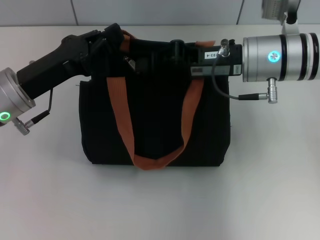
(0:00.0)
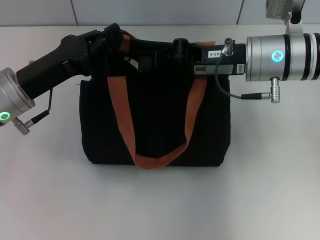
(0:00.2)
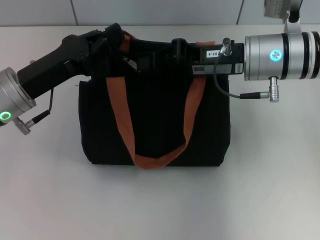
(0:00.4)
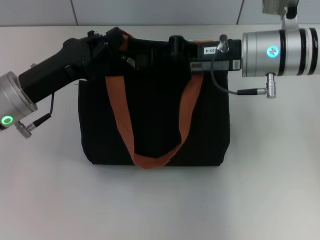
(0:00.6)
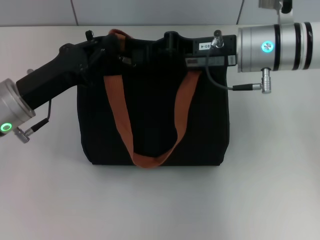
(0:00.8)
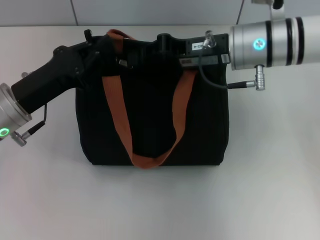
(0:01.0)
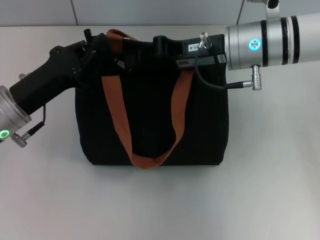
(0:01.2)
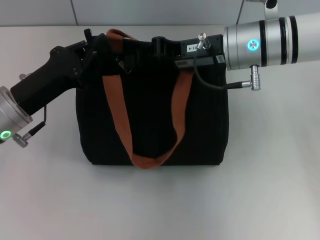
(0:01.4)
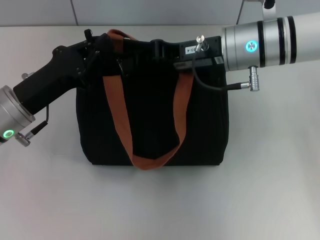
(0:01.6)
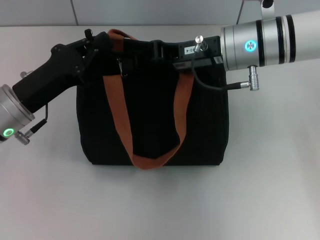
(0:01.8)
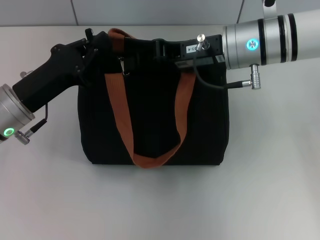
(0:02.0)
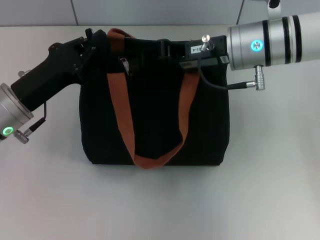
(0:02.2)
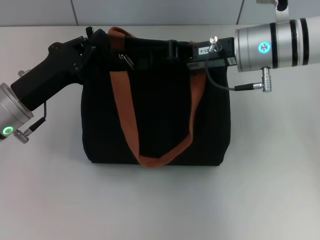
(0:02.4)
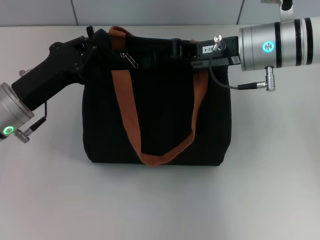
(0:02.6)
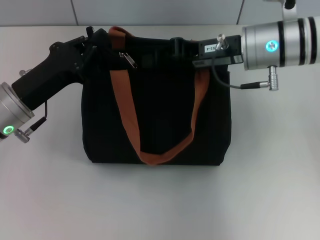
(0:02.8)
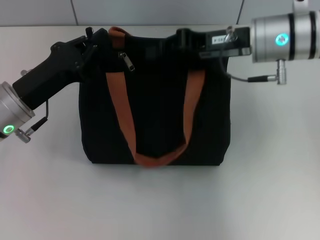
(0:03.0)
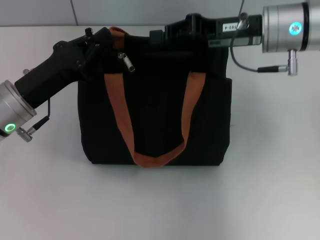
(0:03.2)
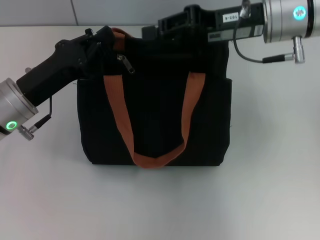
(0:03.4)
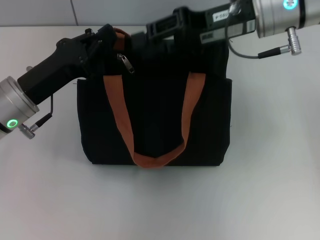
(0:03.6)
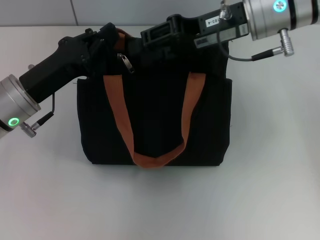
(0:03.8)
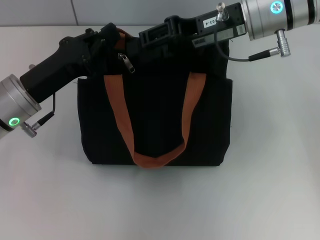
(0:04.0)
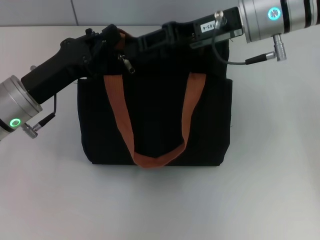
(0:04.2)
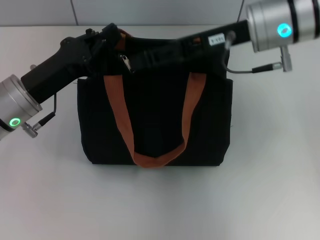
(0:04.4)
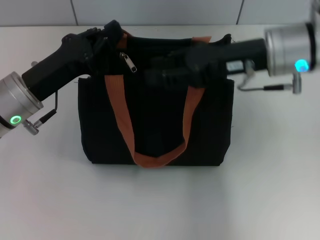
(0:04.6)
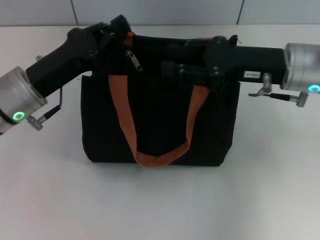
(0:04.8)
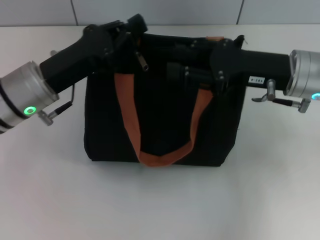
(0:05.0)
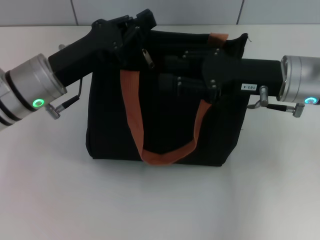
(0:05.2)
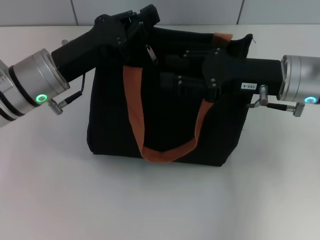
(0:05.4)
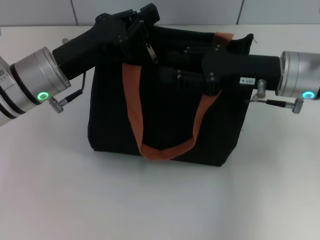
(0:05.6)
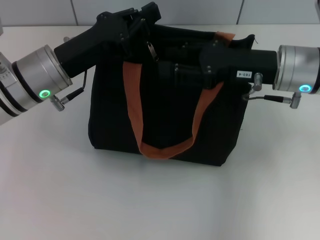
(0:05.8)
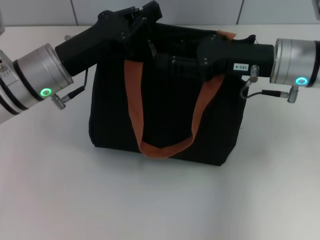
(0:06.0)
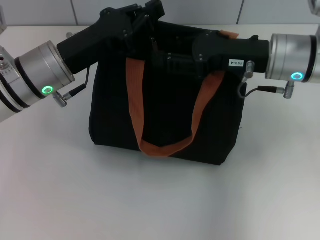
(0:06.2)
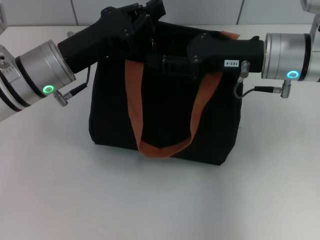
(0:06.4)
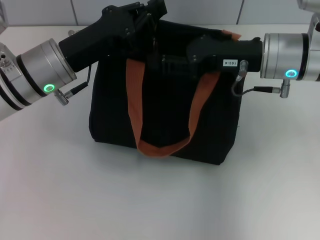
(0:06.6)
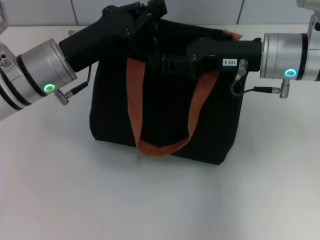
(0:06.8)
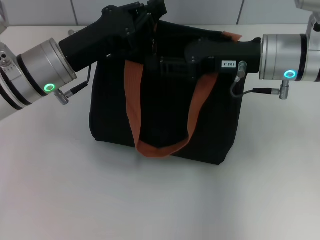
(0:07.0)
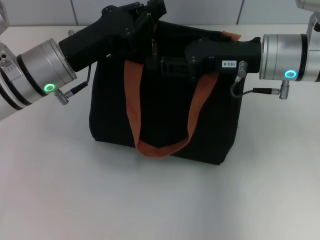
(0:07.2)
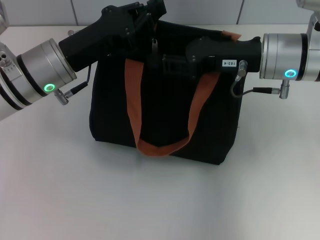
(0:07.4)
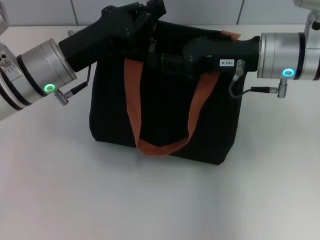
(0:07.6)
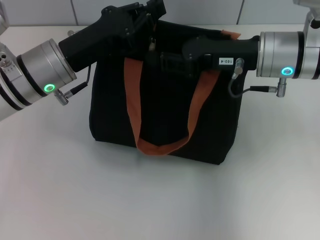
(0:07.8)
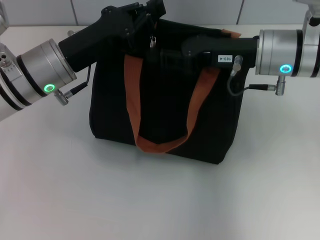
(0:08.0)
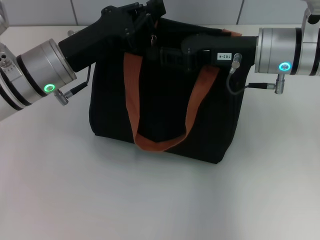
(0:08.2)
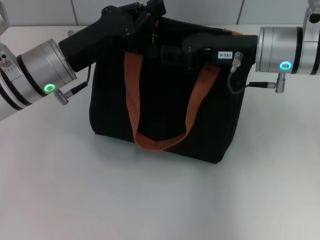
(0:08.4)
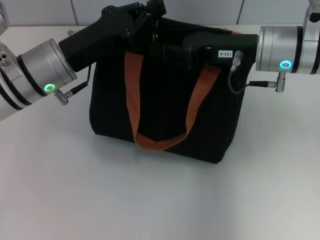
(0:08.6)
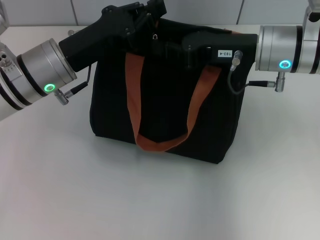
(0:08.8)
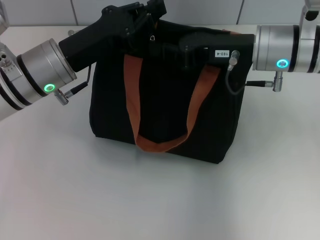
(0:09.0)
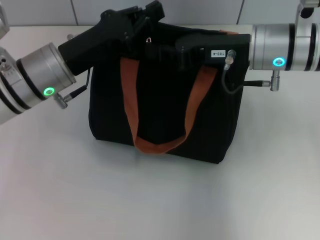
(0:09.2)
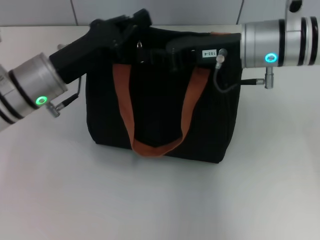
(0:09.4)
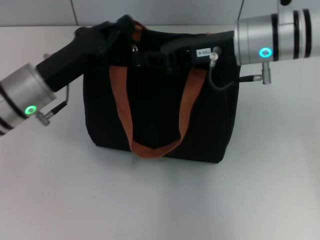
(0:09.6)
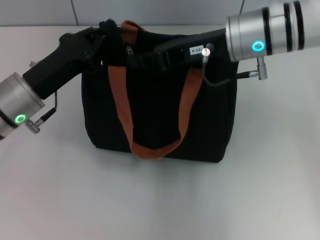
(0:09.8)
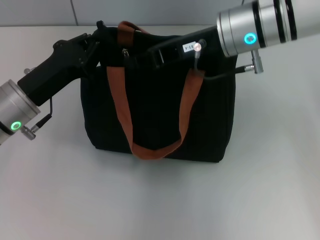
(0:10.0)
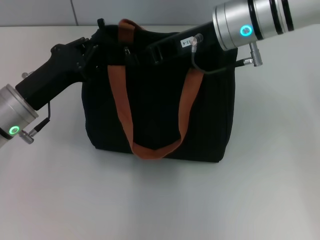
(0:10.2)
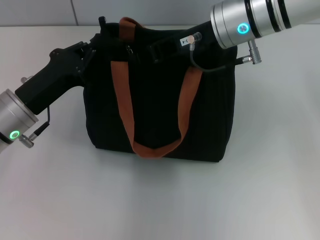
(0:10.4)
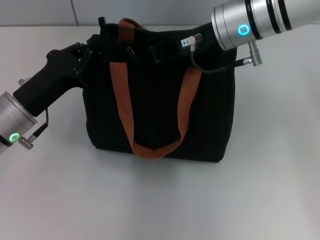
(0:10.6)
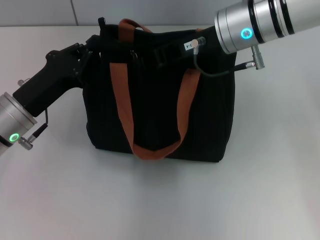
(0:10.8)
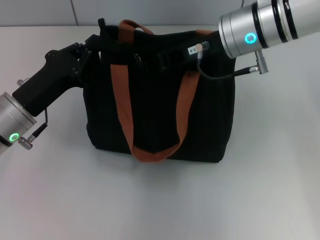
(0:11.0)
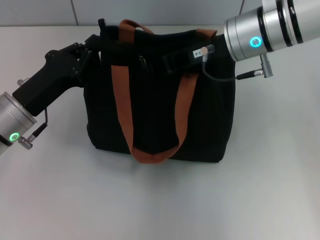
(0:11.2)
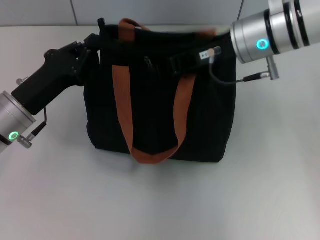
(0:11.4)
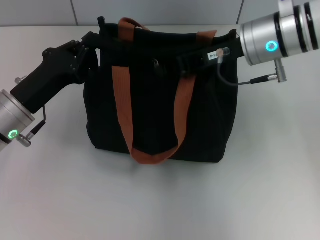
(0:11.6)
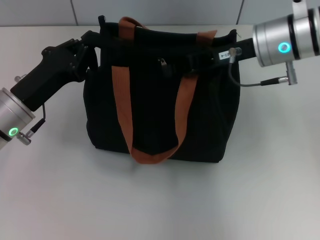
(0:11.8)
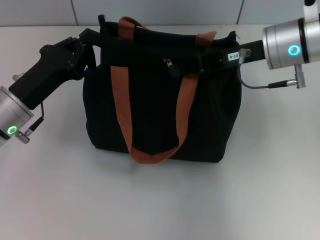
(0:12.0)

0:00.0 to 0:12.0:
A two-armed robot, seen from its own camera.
0:00.0 to 0:03.0: The grippers move only a little.
0:03.0 to 0:04.4: The right gripper opens up.
0:04.4 to 0:06.0: The left gripper shifts by roughly 5 cm. The right gripper travels downward by roughly 5 cm.
0:06.0 to 0:07.6: The grippers stay close to where they were, moving slightly.
0:07.6 to 0:09.0: The right gripper closes up.
0:09.0 to 0:10.4: Both grippers move to the left, approximately 5 cm.
0:10.4 to 0:12.0: The right gripper moves to the right, approximately 5 cm.

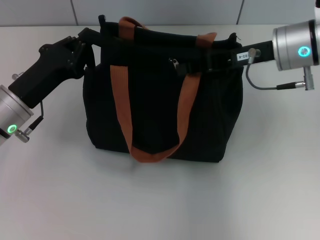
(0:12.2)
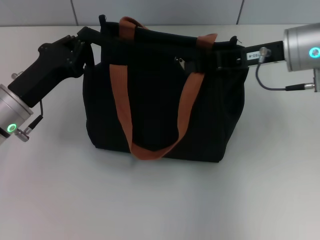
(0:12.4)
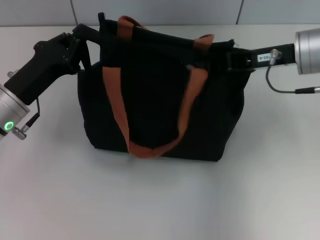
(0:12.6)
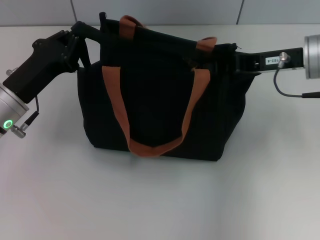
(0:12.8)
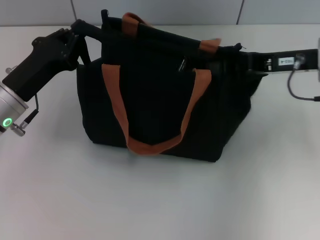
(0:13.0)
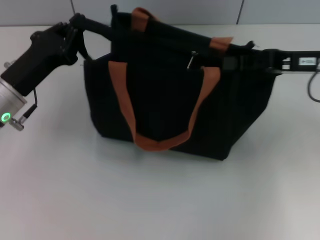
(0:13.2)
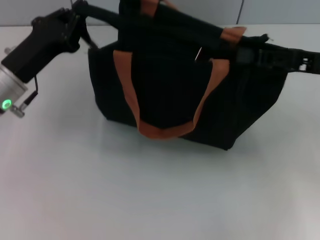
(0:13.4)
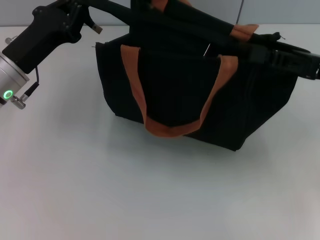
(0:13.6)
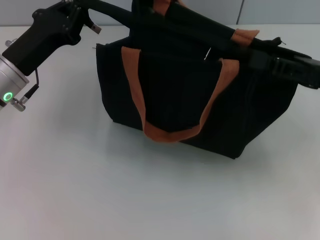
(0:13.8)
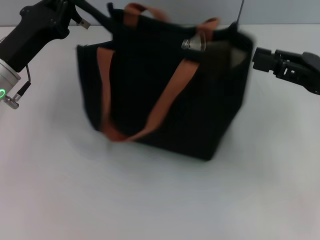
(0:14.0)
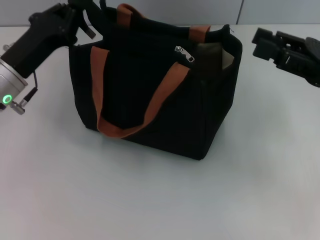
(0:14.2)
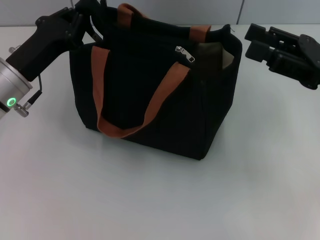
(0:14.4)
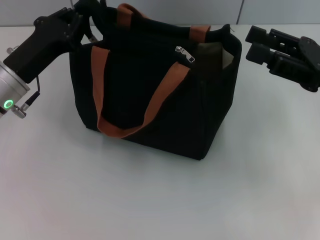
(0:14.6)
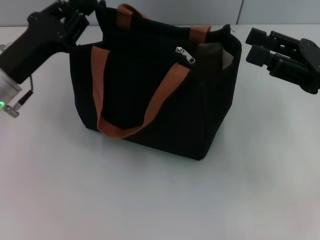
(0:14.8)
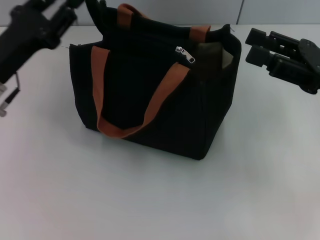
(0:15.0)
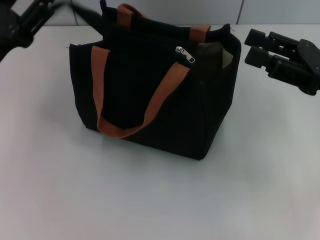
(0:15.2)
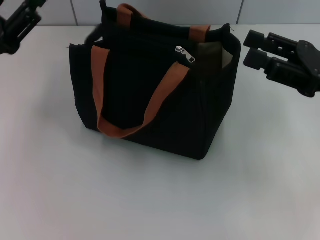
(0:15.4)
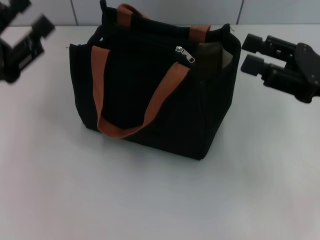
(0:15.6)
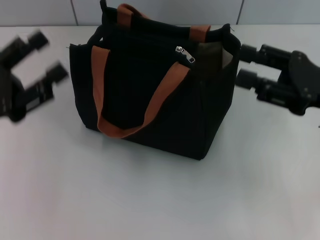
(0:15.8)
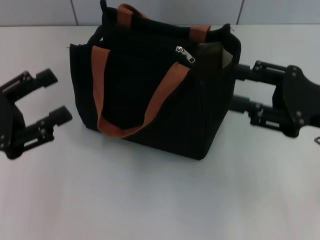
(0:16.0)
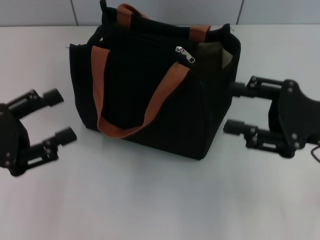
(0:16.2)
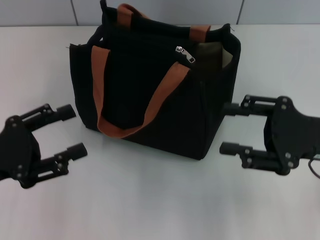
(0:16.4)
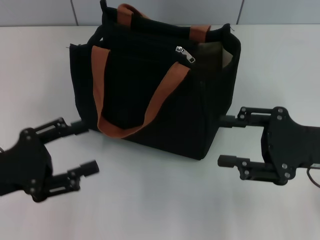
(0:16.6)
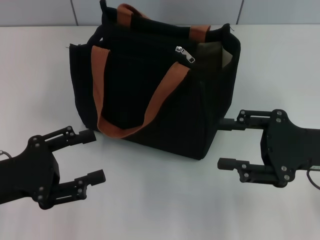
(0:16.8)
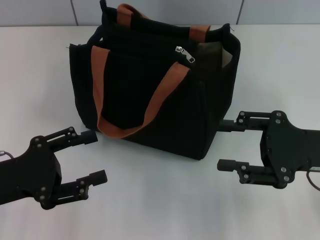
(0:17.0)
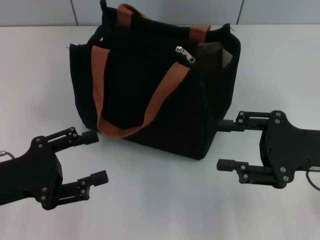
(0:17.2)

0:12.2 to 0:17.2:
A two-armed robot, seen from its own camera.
Step, 0:14.2 to 0:15.2: Grab the zipper with your left hand.
0:12.2 to 0:13.8: The right gripper shifts approximately 15 cm to the right and backward.
0:13.8 to 0:15.6: The left gripper moves backward and to the left, some 10 cm, and opens up. Meanwhile the right gripper opens.
0:15.6 to 0:17.2: The left gripper goes approximately 5 cm backward. The right gripper changes place by approximately 5 cm.

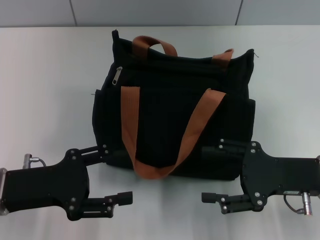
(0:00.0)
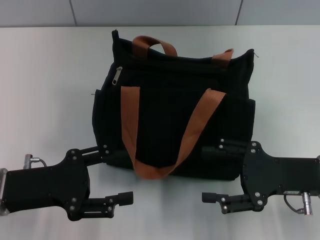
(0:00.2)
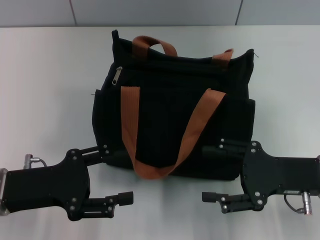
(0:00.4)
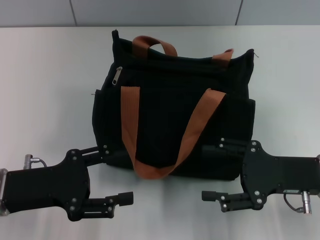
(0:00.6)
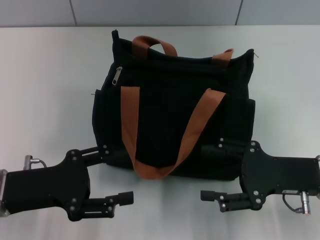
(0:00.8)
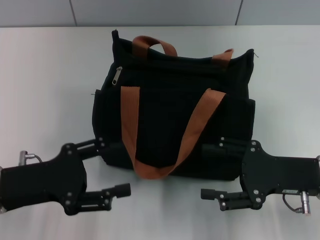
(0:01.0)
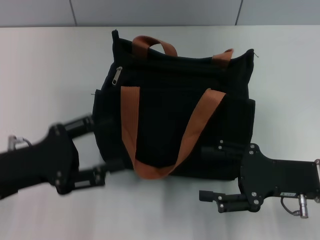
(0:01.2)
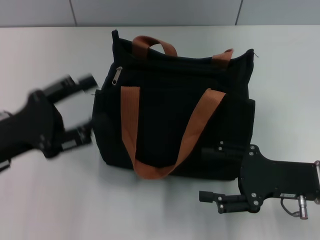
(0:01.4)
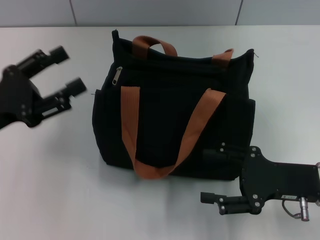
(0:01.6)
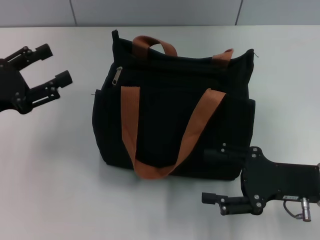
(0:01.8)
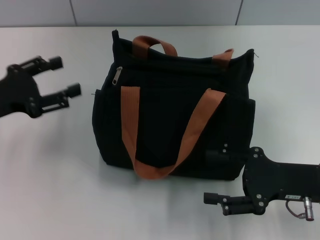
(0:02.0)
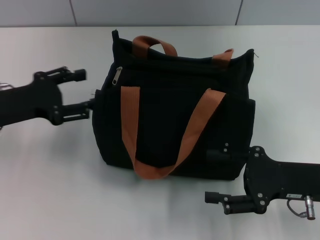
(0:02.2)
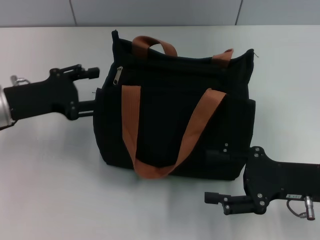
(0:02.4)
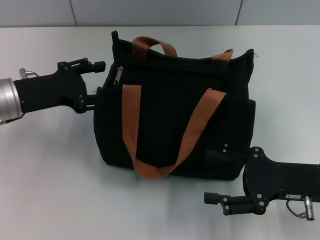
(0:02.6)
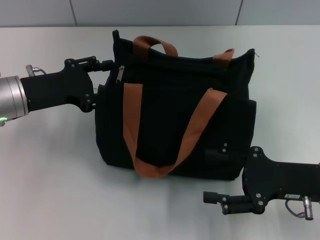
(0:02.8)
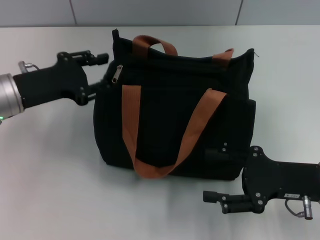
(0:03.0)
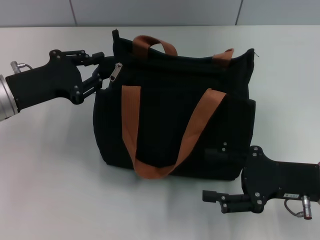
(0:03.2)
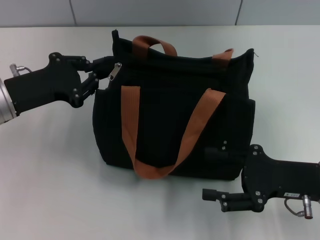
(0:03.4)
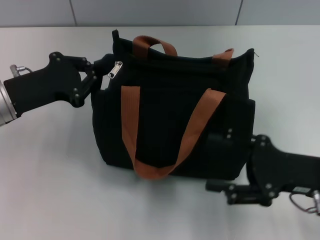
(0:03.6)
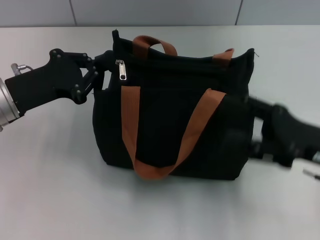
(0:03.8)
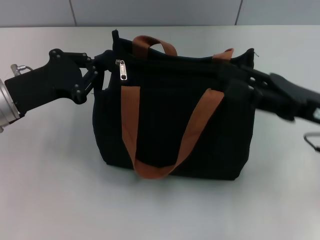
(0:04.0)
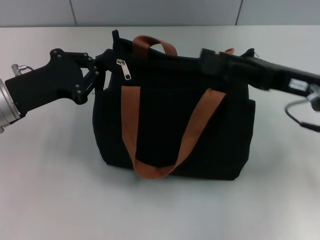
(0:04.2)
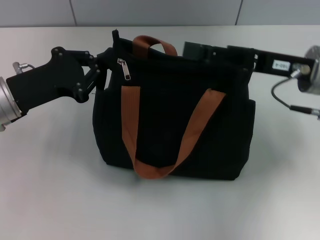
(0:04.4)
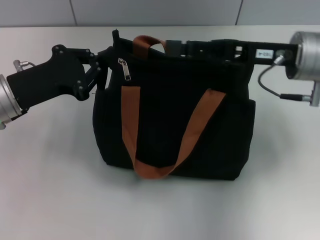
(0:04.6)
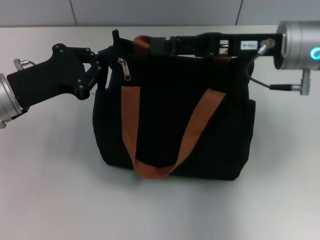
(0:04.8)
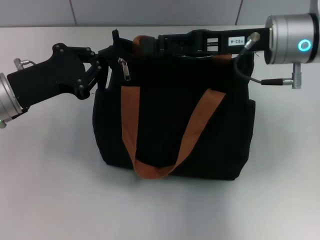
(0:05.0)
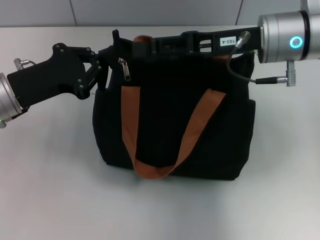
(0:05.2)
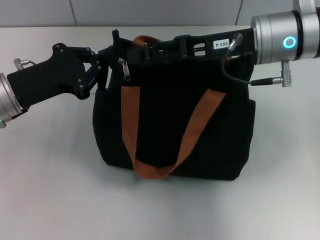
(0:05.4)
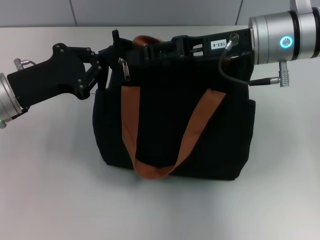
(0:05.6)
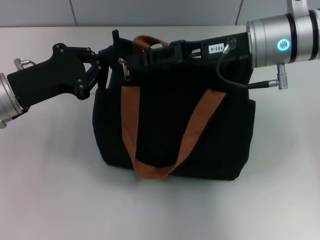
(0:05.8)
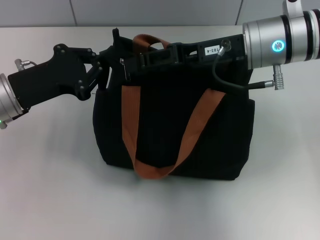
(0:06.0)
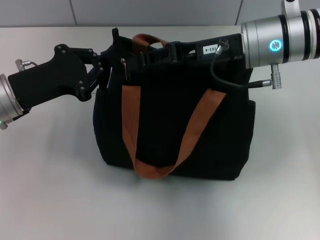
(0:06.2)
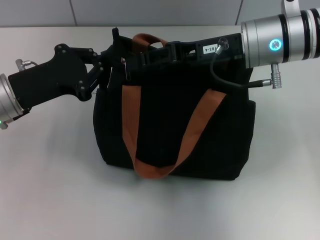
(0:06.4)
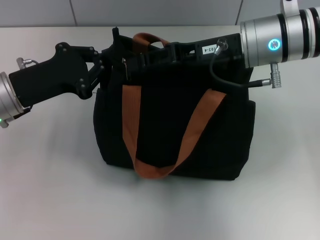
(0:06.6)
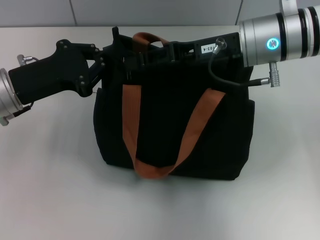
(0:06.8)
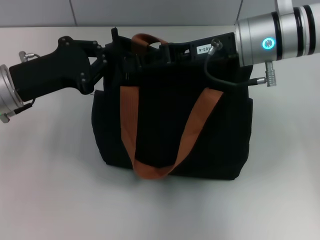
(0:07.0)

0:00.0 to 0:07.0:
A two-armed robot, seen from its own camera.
0:01.4 to 0:02.8: The left gripper is displaced forward by approximately 10 cm.
0:02.8 to 0:04.2: The left gripper closes; the right gripper is displaced forward and upward by roughly 10 cm.
0:04.2 to 0:05.6: The right gripper heads to the left and forward, covering approximately 10 cm.
0:05.6 to 0:07.0: The right gripper closes its fingers.
